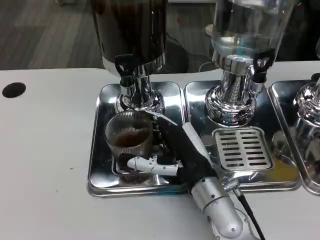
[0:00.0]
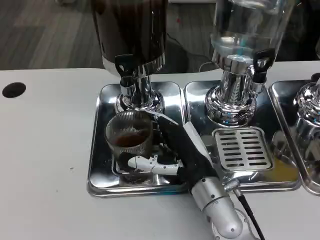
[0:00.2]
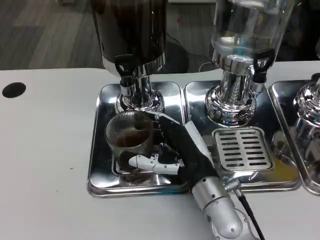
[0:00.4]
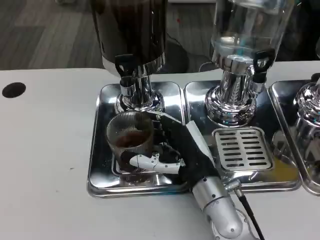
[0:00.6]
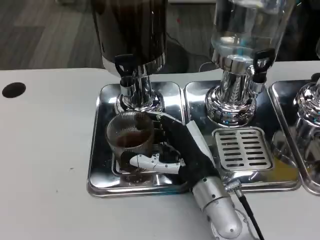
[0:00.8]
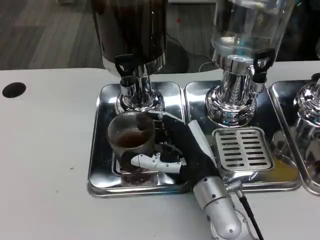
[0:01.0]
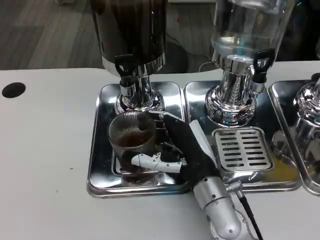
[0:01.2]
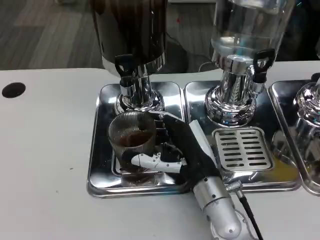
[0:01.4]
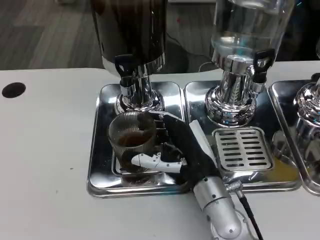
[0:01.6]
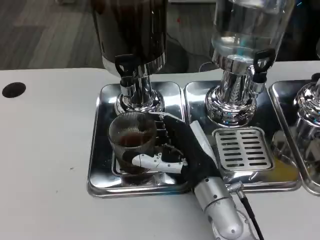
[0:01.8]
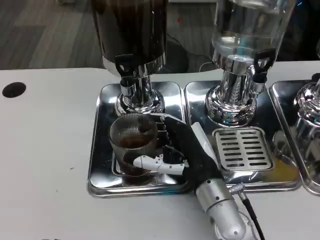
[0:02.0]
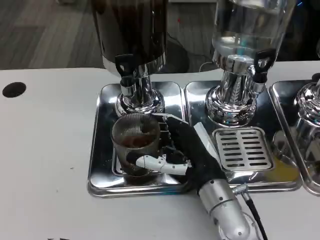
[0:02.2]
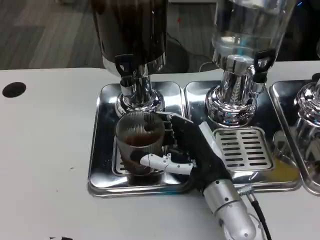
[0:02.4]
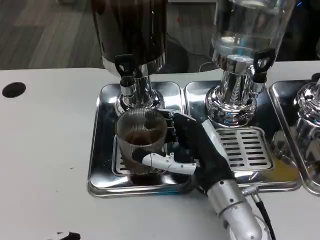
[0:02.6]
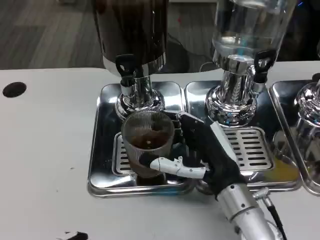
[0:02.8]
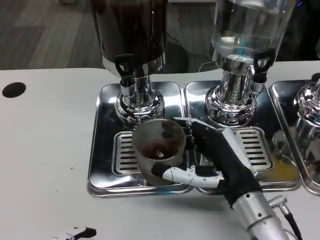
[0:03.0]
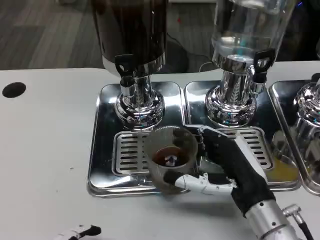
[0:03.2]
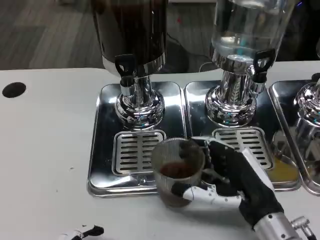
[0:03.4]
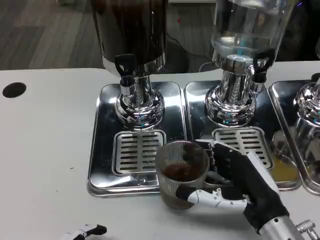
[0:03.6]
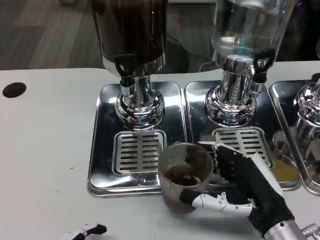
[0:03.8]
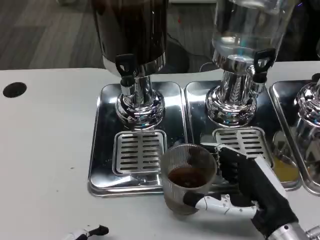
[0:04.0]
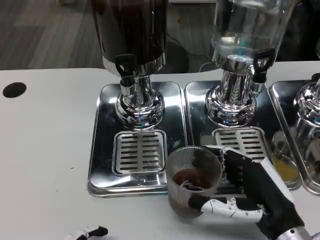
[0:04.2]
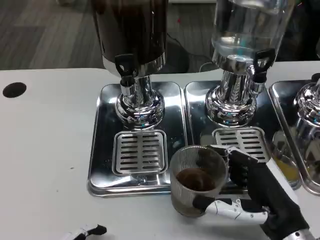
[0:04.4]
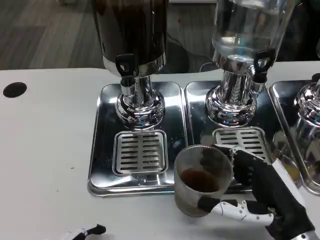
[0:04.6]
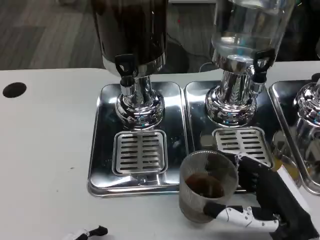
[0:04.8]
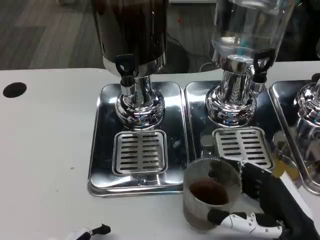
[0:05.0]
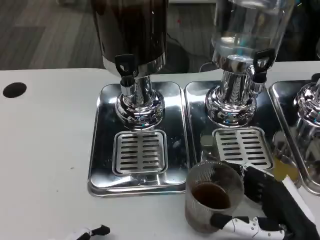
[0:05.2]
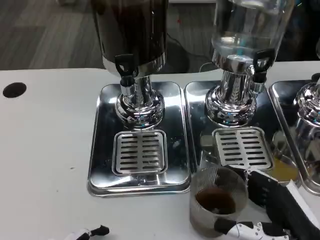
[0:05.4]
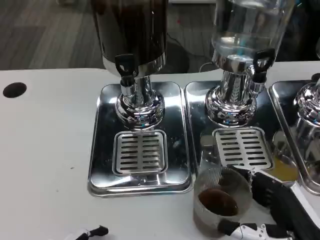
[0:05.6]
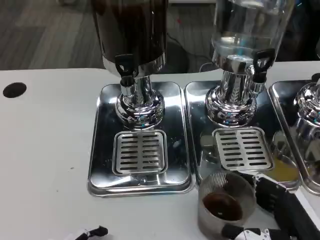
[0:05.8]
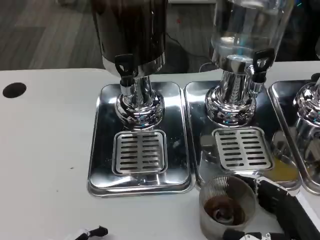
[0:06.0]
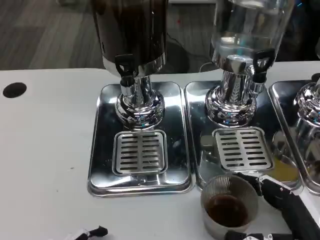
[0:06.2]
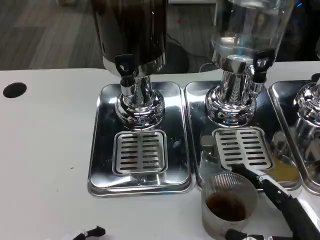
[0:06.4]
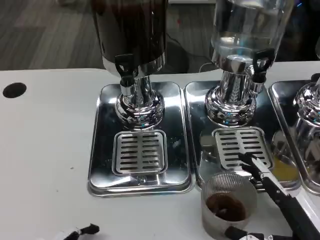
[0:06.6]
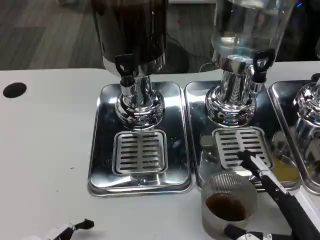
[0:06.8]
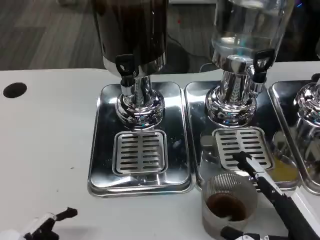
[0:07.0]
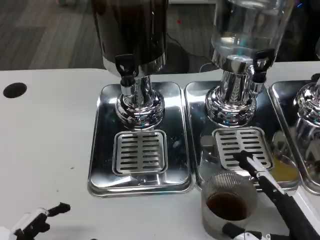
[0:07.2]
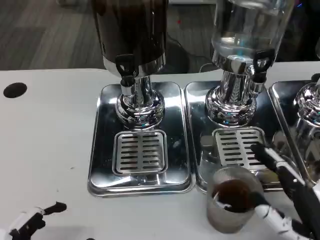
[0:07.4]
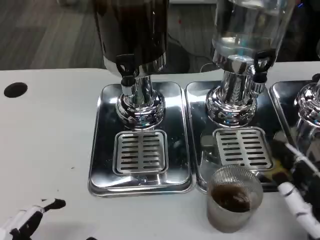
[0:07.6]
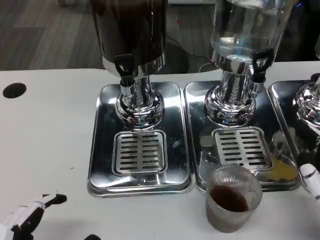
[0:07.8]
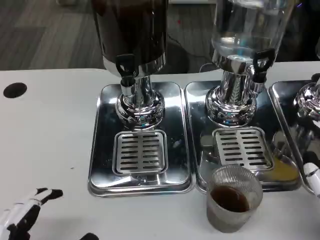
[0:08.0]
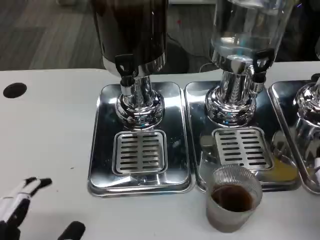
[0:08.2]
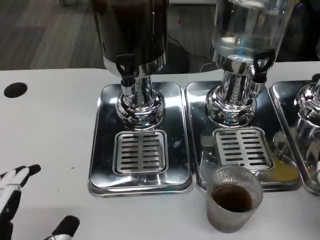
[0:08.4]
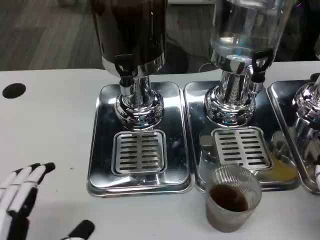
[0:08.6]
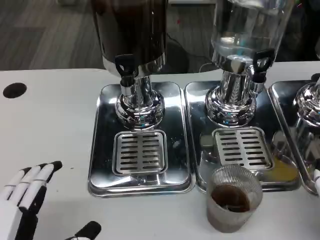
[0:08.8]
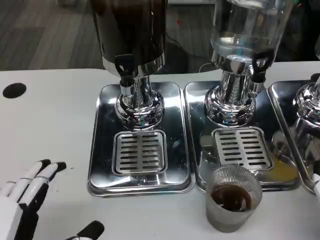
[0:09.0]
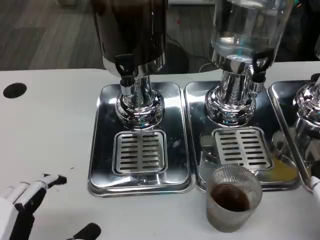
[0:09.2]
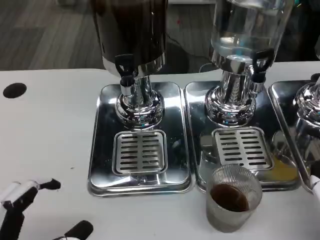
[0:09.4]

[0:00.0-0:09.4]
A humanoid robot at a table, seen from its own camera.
Task of the whole recording: Grasp the cup under the faucet to collect the drink, then remove the cup.
0:00.0 to 0:01.6: The two hands keep their place.
0:01.6 to 0:03.2: The right hand moves to the right, roughly 10 cm.
0:03.2 to 0:04.8: The right hand moves to the right, some 5 cm.
0:04.8 to 0:06.2: The right hand changes place by approximately 5 cm.
0:06.2 to 0:07.8: The hands move only a little.

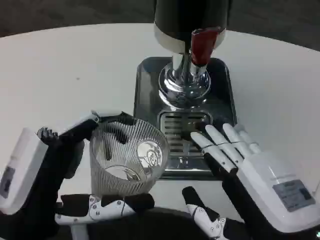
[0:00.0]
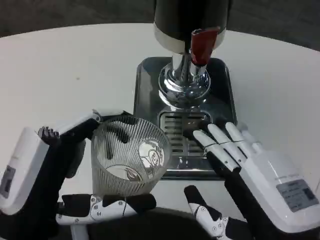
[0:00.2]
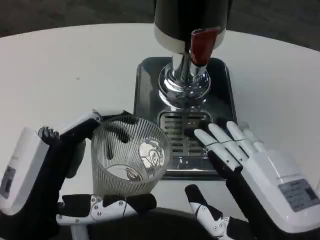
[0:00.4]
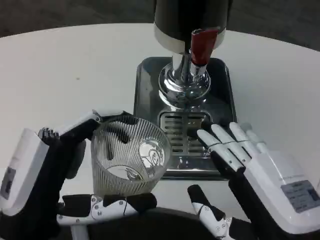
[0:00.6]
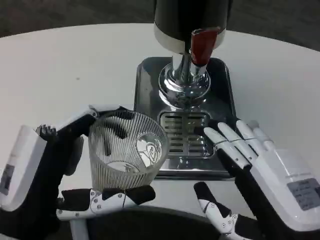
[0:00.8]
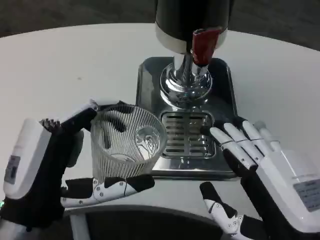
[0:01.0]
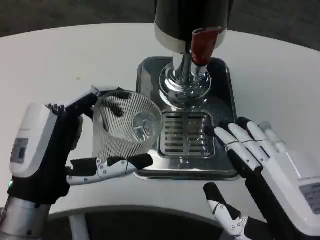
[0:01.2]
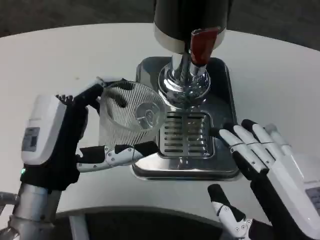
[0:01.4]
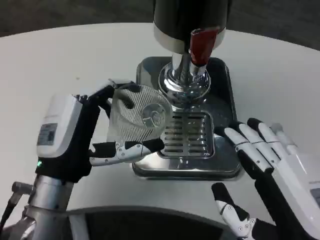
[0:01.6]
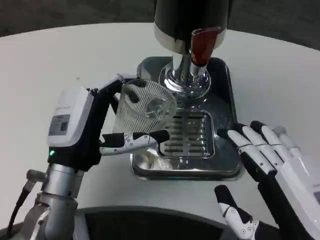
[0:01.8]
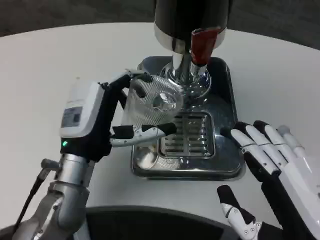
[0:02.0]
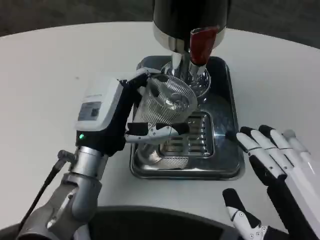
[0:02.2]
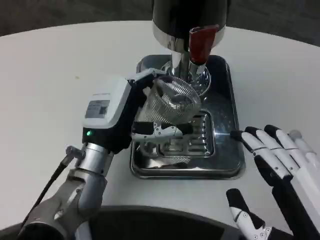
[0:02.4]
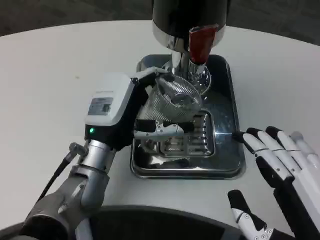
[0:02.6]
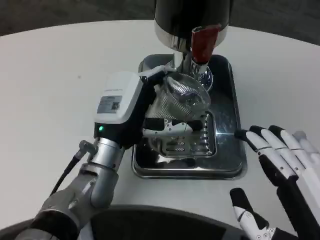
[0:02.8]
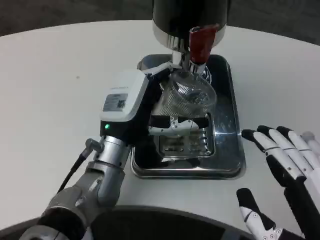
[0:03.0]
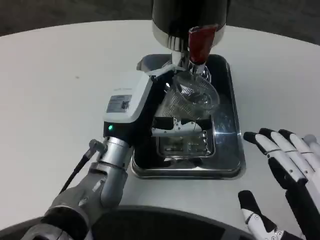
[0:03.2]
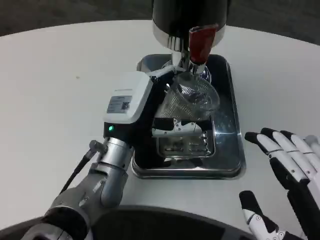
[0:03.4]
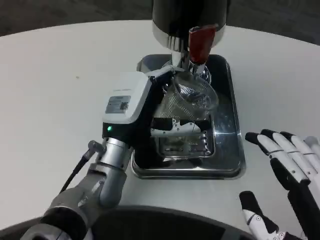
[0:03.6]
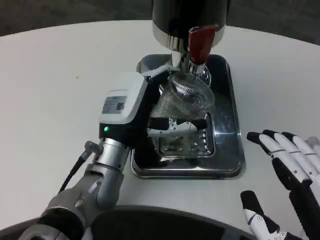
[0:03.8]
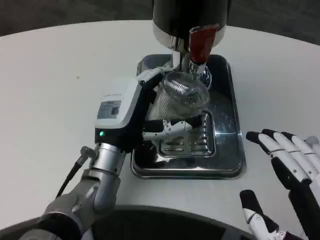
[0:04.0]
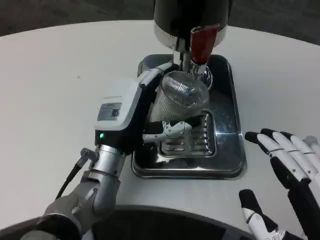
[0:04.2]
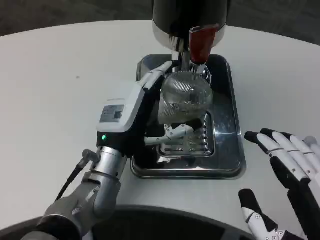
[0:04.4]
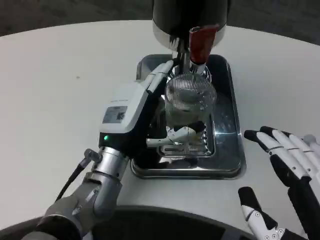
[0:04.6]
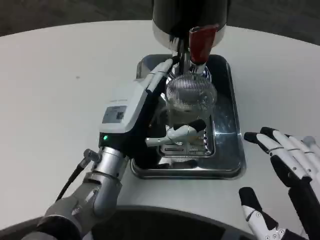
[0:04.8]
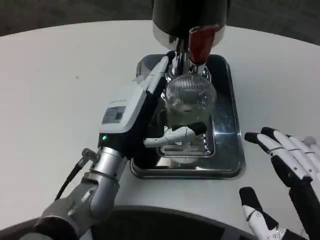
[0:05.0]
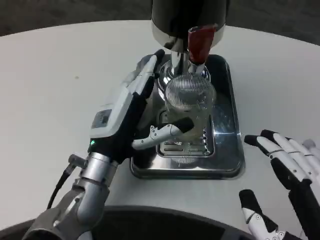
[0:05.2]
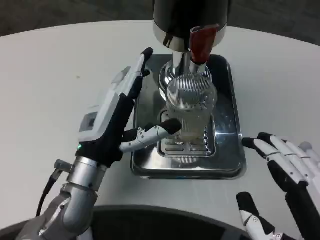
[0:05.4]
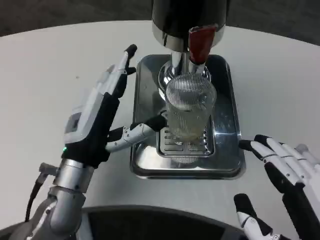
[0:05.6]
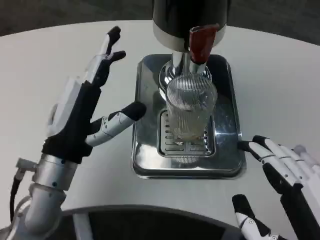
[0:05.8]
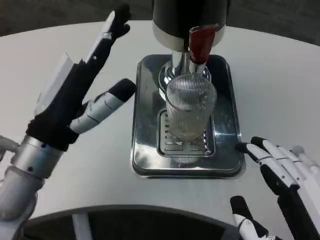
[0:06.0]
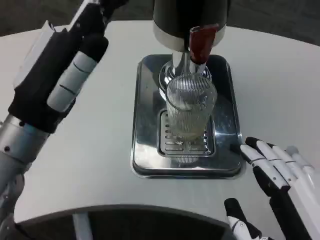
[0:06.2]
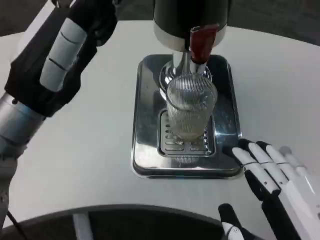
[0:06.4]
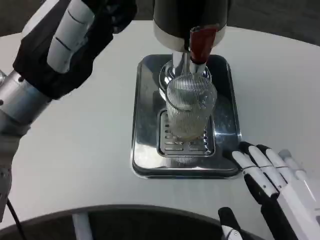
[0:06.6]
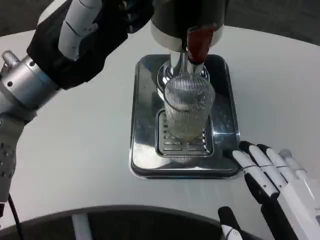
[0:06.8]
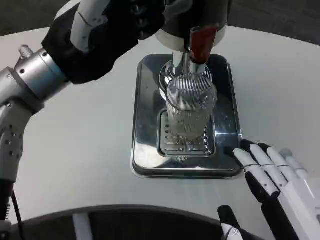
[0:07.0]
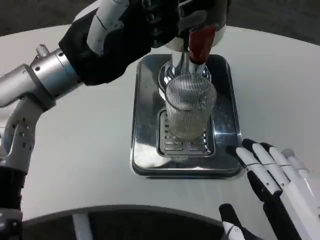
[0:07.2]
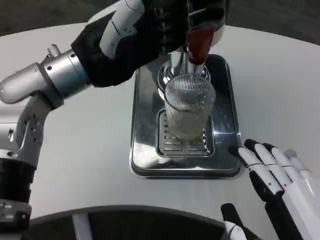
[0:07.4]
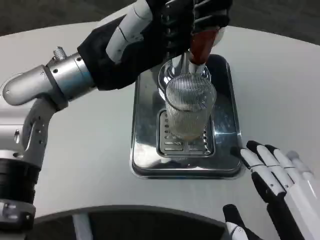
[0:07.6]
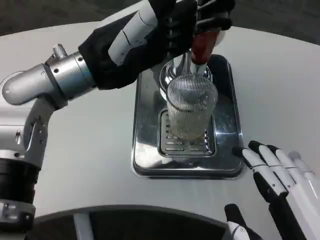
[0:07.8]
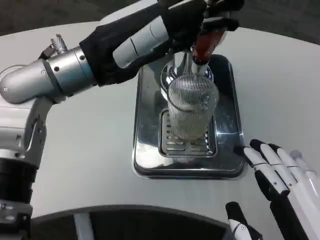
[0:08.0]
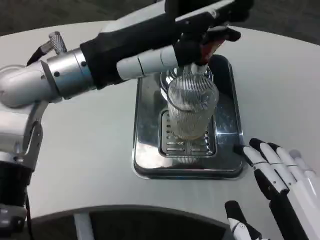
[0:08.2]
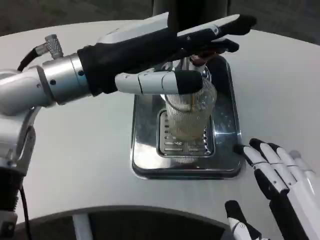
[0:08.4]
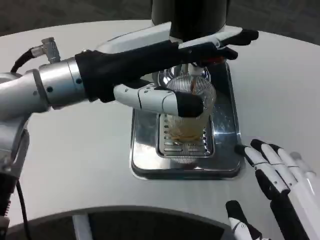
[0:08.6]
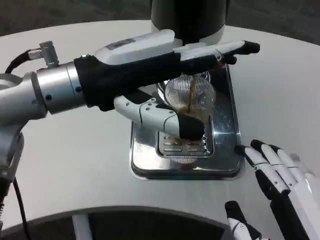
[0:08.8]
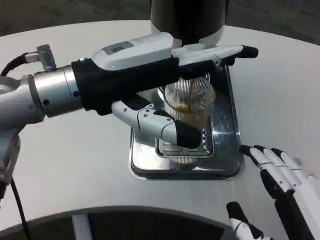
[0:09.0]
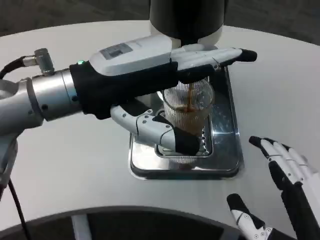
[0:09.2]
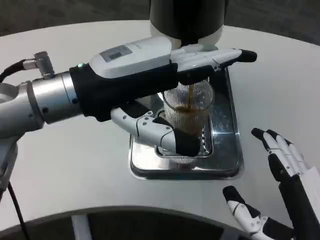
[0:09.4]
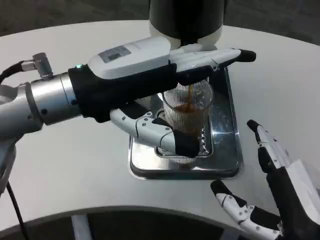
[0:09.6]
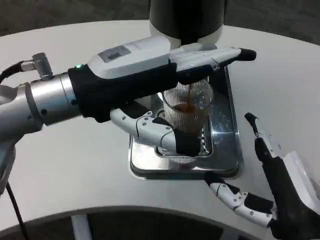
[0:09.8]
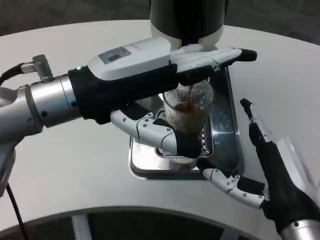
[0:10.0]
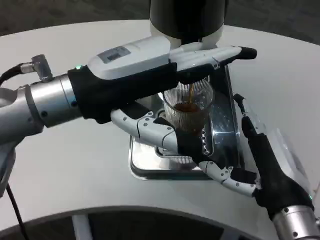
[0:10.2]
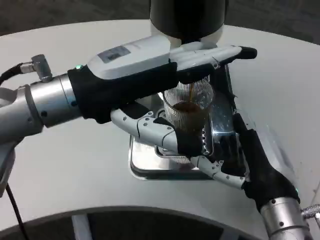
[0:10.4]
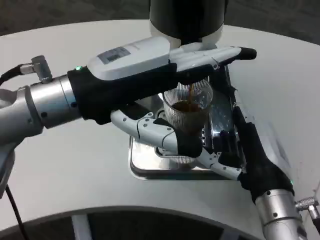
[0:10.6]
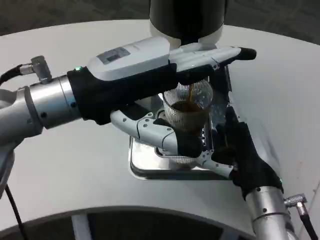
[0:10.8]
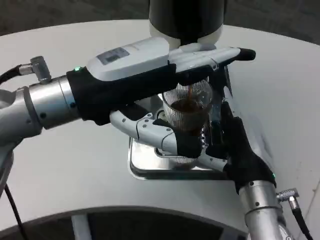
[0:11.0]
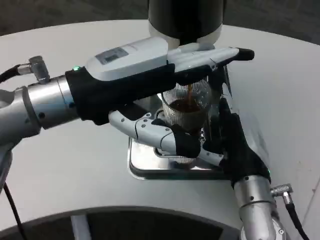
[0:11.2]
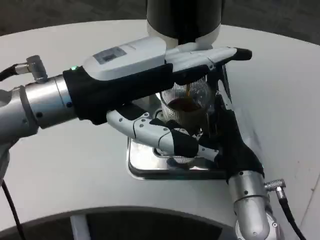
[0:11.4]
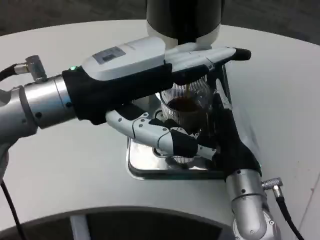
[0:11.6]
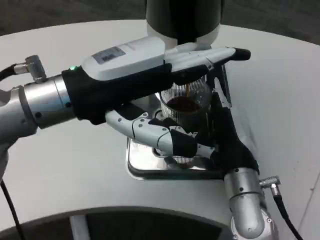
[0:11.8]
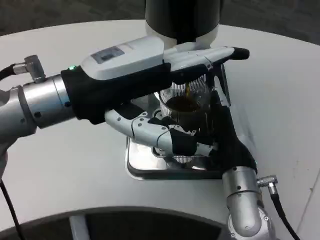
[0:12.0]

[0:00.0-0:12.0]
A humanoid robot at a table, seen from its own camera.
Task of the whole recording: Grasp the cup under the faucet to collect the drink, then remove the cup.
0:00.0 to 0:01.6: The left hand travels forward by some 10 cm.
0:01.6 to 0:03.0: The left hand goes some 10 cm forward and to the right.
0:03.0 to 0:04.4: There are only small adjustments of the hands.
0:04.4 to 0:06.0: The left hand is displaced to the left, upward and backward by roughly 15 cm.
0:06.0 to 0:07.6: The left hand goes some 10 cm upward and forward.
0:07.6 to 0:09.0: The left hand changes place by approximately 5 cm.
0:09.0 to 0:10.4: The right hand travels forward by some 15 cm.
0:10.4 to 0:12.0: The right hand moves forward, about 5 cm.

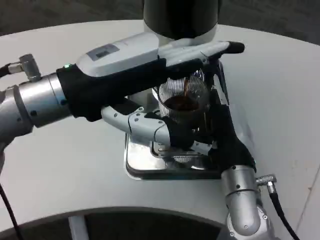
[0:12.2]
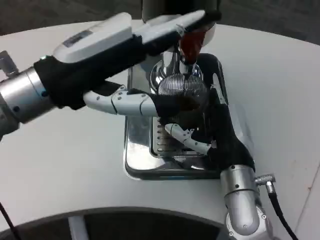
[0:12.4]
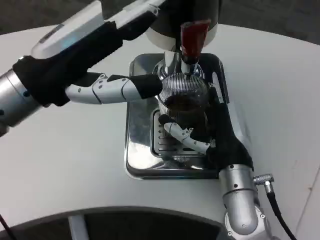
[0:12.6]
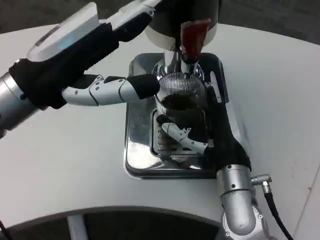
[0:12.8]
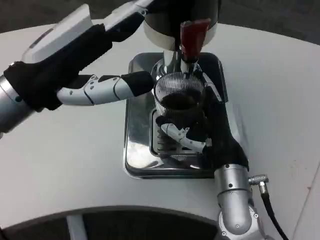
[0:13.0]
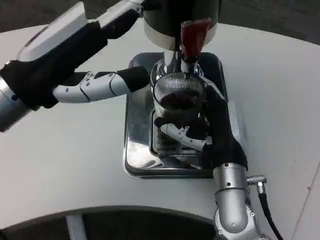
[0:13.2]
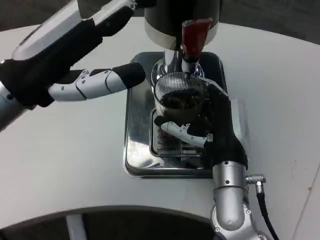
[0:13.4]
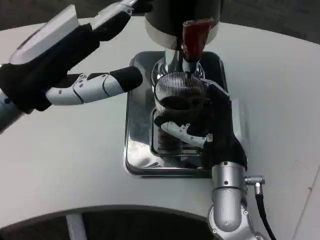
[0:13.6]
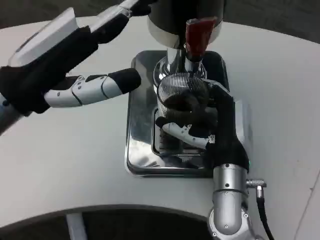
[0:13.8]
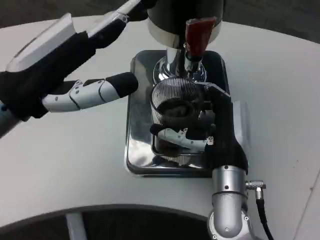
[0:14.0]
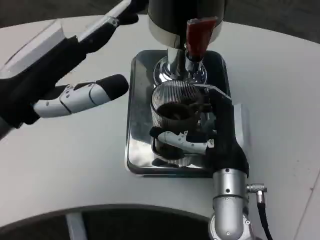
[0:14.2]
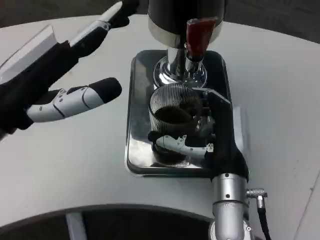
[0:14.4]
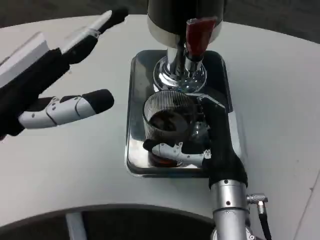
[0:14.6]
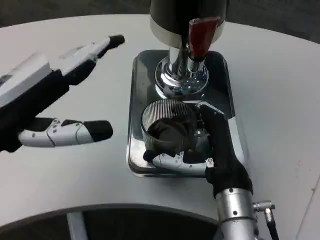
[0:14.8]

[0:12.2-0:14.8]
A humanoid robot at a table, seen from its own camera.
Task of the whole recording: Grasp the cup under the faucet to collect the drink, then remove the cup.
0:13.4 to 0:14.8: The left hand ends up about 5 cm from where it was.
